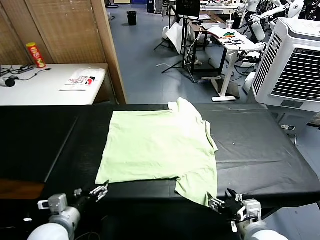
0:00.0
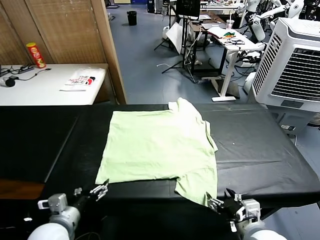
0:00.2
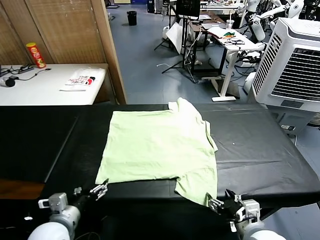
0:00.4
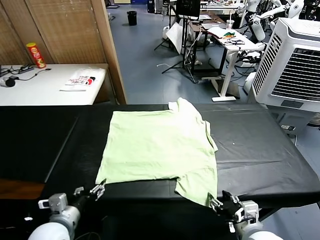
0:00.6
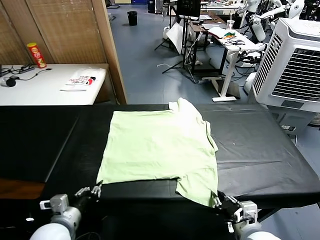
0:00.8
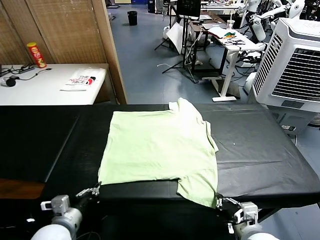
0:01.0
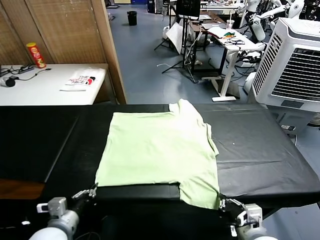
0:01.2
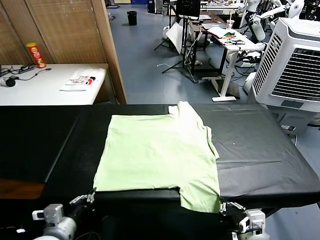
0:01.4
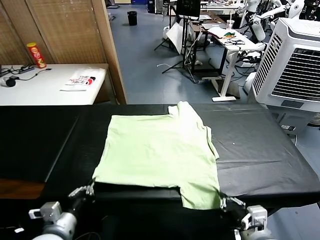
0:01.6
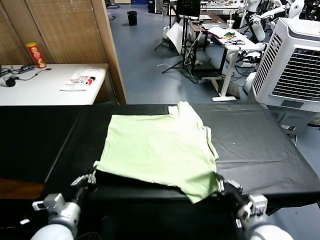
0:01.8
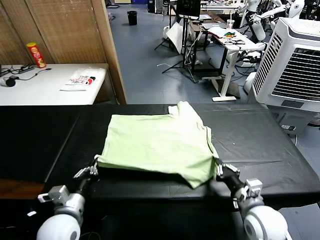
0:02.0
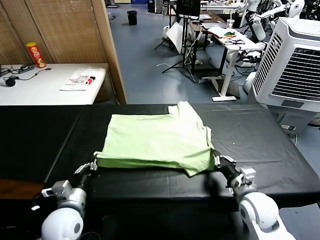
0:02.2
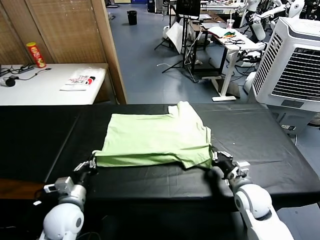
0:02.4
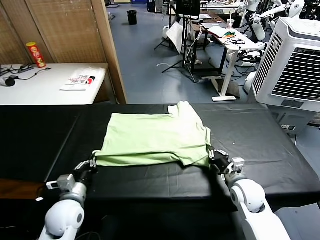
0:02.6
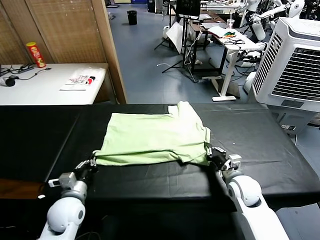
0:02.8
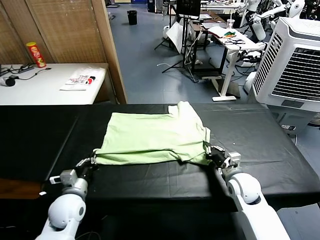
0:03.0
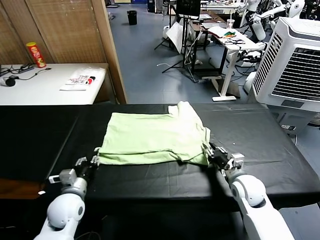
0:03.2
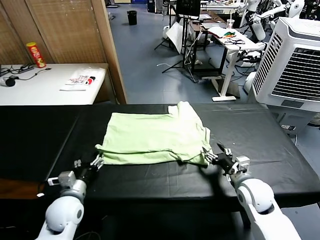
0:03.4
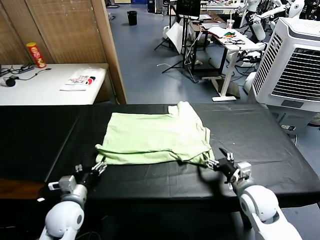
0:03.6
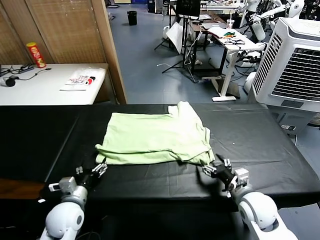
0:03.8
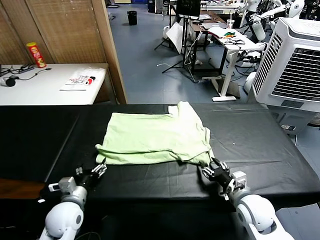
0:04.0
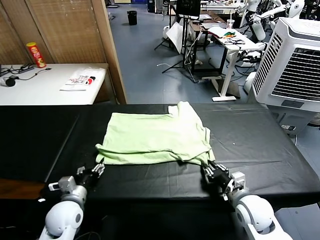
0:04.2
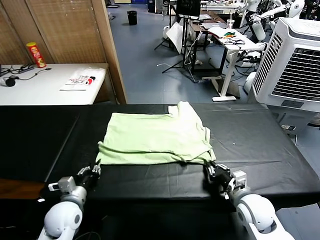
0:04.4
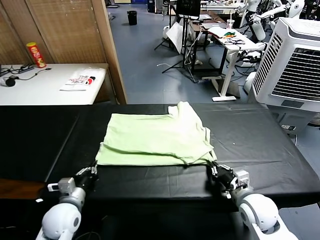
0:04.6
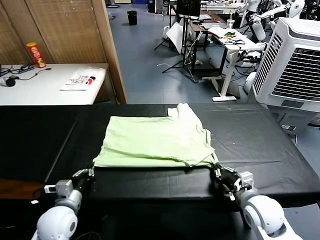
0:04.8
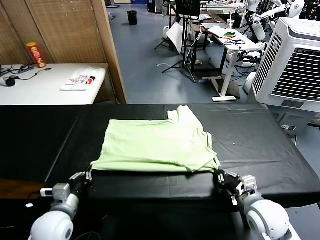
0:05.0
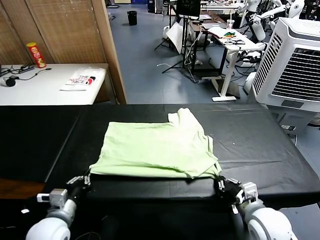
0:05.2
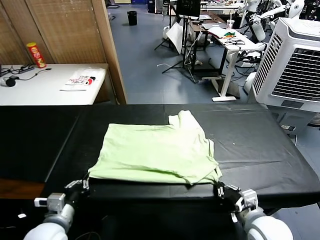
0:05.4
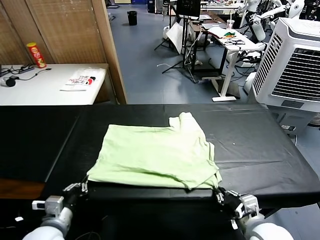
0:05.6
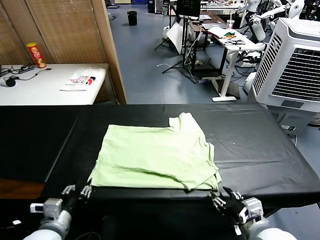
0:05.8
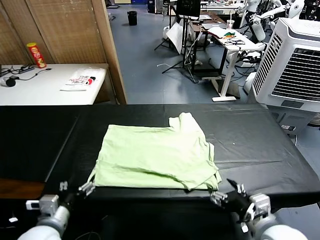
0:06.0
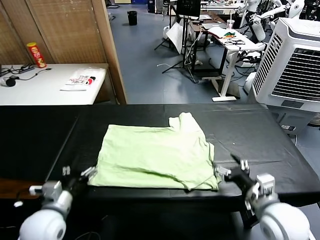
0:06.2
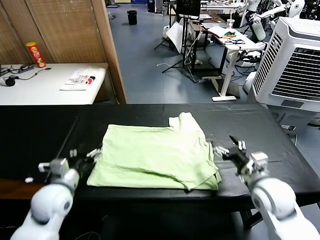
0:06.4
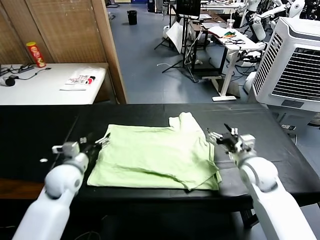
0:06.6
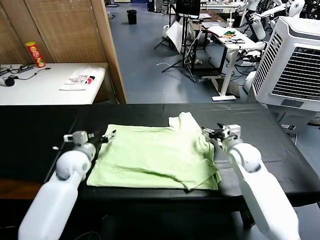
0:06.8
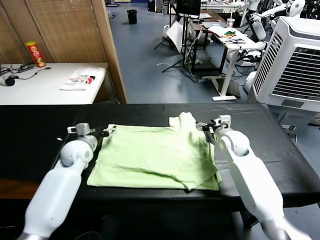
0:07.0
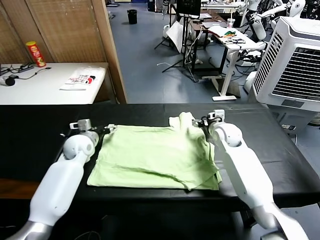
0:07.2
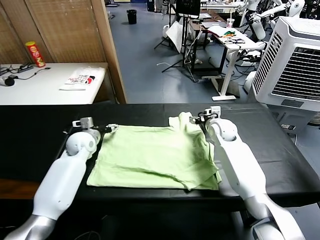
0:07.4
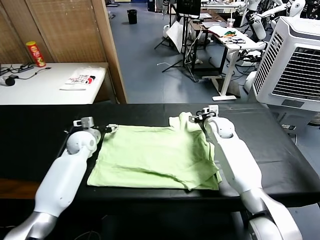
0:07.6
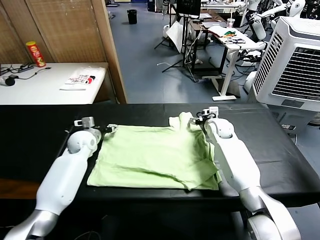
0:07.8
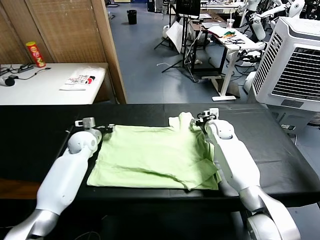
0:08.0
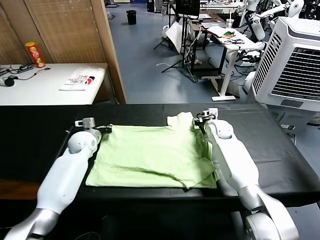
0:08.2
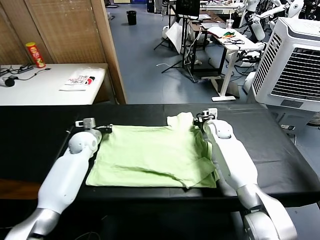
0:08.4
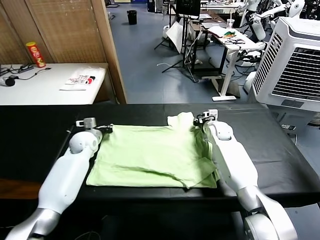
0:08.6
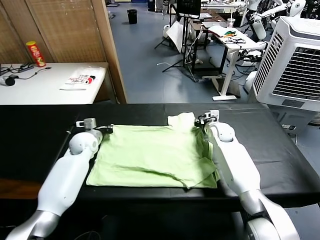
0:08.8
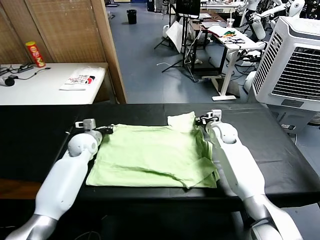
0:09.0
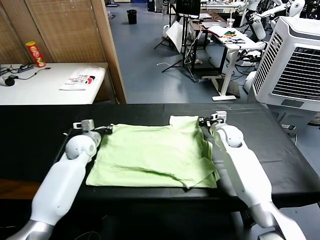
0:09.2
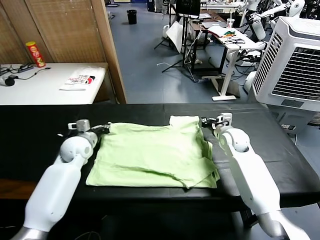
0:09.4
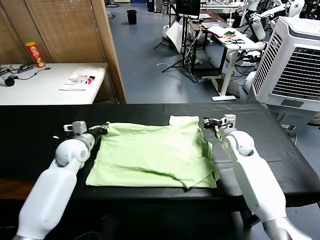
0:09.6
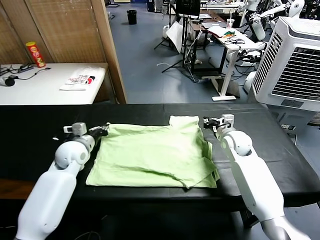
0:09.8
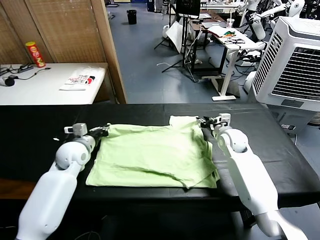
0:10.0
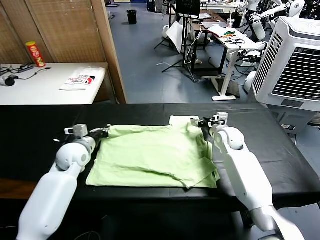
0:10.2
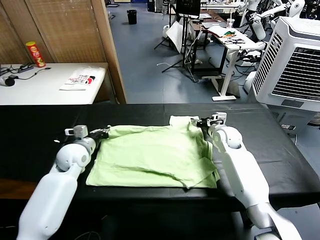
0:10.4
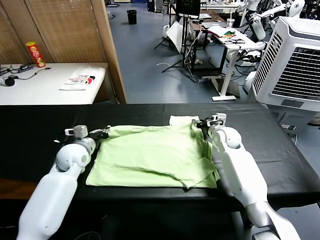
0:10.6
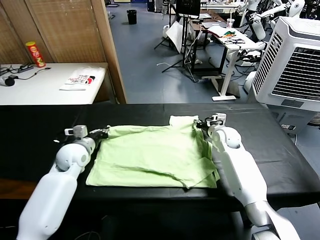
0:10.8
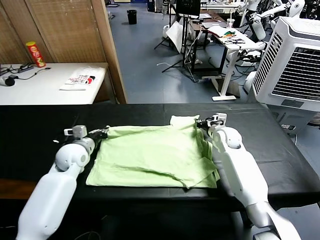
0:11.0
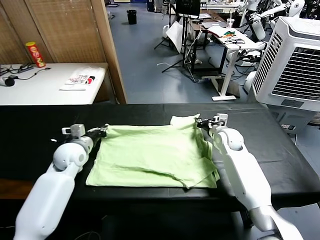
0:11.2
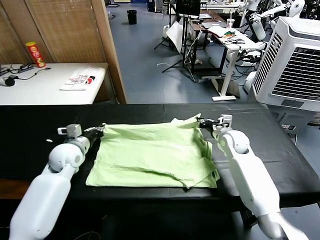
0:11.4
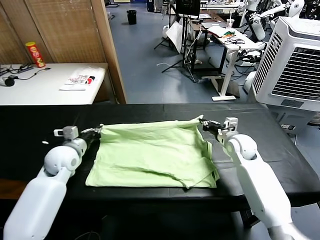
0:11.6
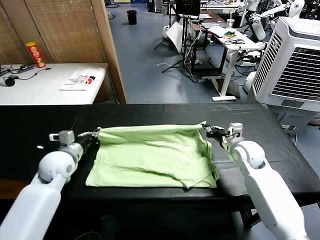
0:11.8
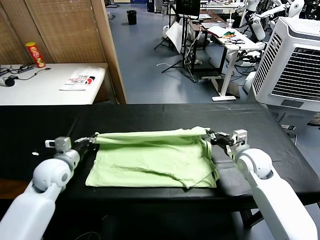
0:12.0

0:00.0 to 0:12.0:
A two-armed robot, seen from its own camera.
Task of the whole recording: fold and organize the clothes.
Step, 0:00.0 to 0:01.0: use both grippers simultaneously to clamp the lower edge of the clothing fabric.
Step, 0:01.2 to 0:03.4: use both grippers to drag the lower edge of the fabric forward and fold it over the upper edge.
Step, 0:03.6 to 0:05.8: Drag the clothes downward with both gripper.
Step, 0:06.2 to 0:08.4: use both grippers simultaneously to clamp the upper edge of the clothing fabric.
0:01.6 to 0:03.0: The right gripper goes about 15 cm forward. Meanwhile the left gripper heads forward and downward, covering about 15 cm.
0:03.0 to 0:04.4: The left gripper opens and closes again; the right gripper moves backward, roughly 5 cm, and opens, then closes once more.
0:04.4 to 0:06.0: The left gripper travels backward and upward by some 10 cm, and opens its fingers, while the right gripper shifts approximately 10 cm upward and backward, and opens up.
0:06.0 to 0:07.6: The two grippers go some 35 cm forward.
0:07.6 to 0:09.0: The right gripper closes up. Meanwhile the left gripper closes up.
0:09.0 to 0:10.4: The left gripper moves backward, roughly 5 cm. Meanwhile the right gripper opens up.
0:10.4 to 0:12.0: The left gripper shifts roughly 10 cm backward, while the right gripper goes approximately 15 cm backward, and closes its fingers.

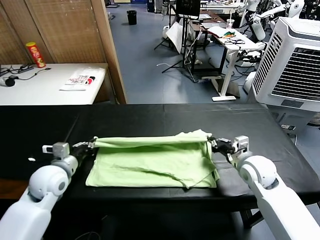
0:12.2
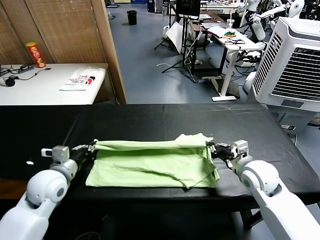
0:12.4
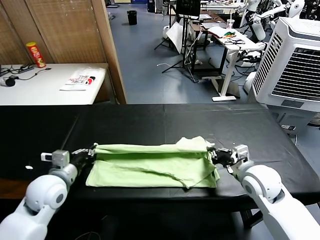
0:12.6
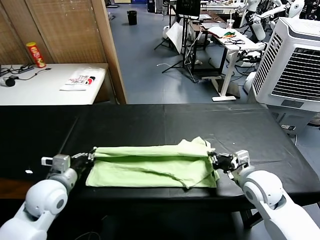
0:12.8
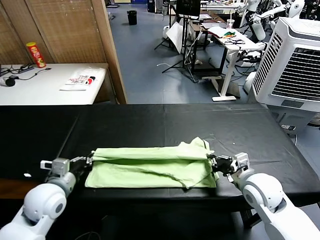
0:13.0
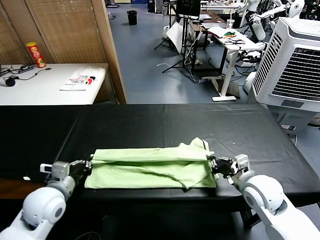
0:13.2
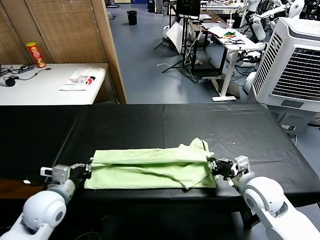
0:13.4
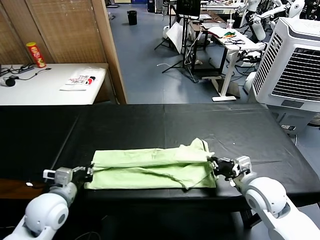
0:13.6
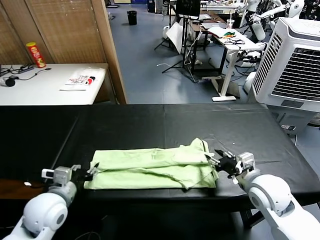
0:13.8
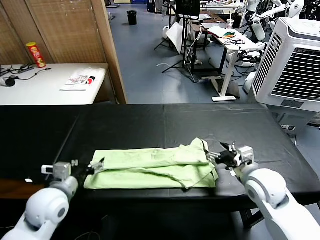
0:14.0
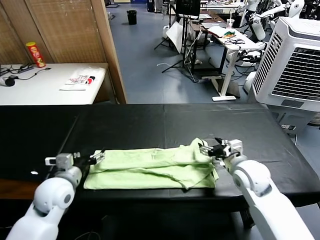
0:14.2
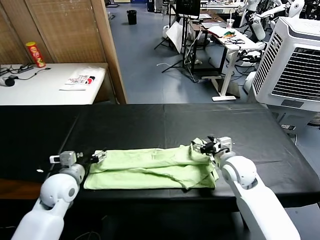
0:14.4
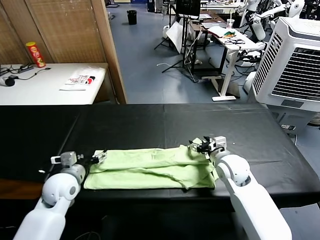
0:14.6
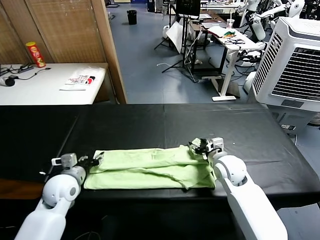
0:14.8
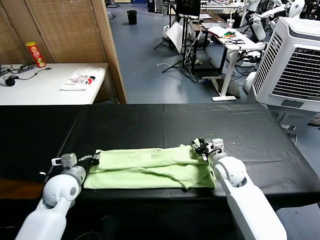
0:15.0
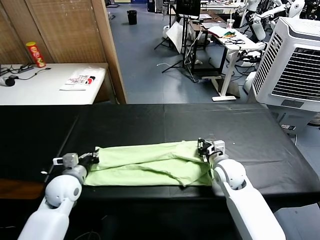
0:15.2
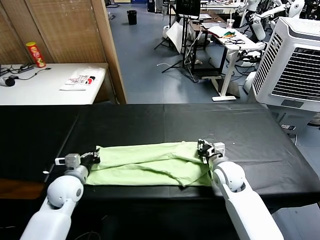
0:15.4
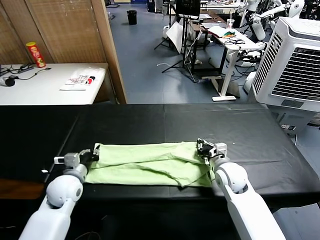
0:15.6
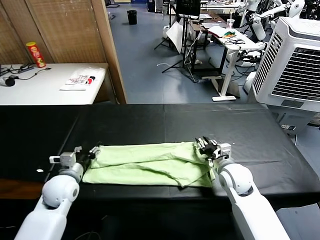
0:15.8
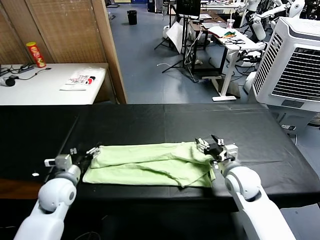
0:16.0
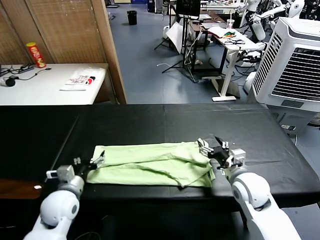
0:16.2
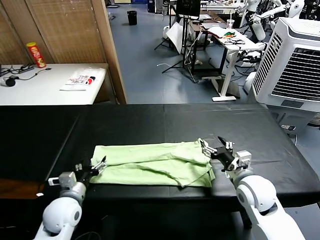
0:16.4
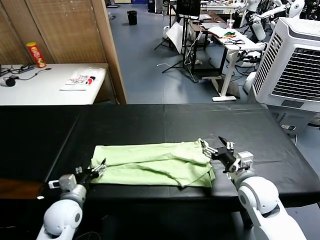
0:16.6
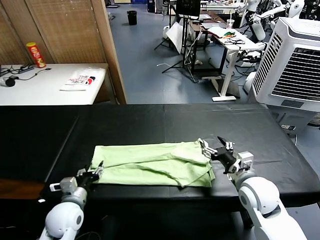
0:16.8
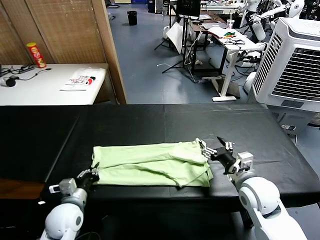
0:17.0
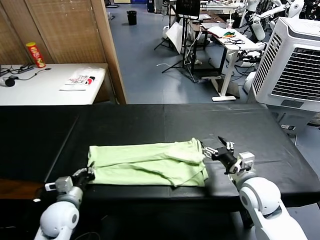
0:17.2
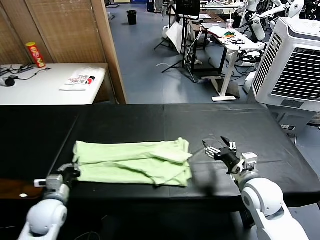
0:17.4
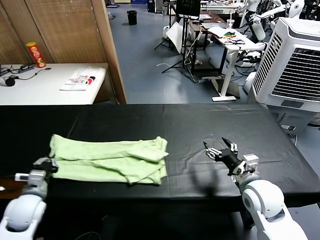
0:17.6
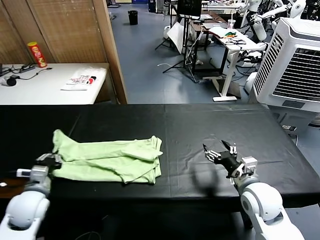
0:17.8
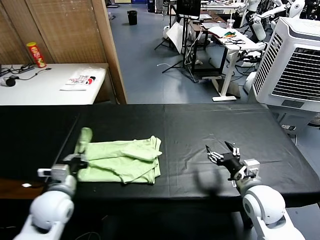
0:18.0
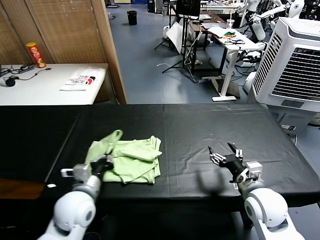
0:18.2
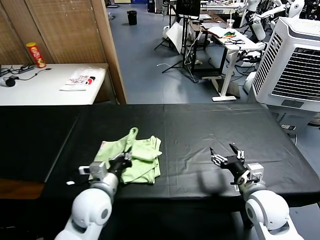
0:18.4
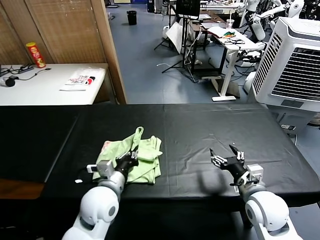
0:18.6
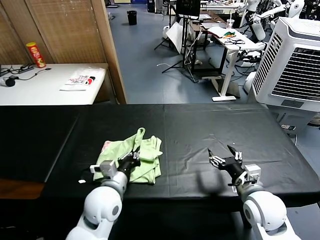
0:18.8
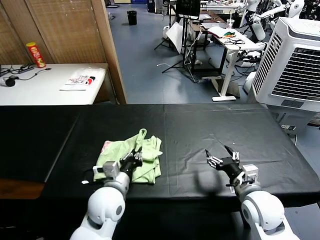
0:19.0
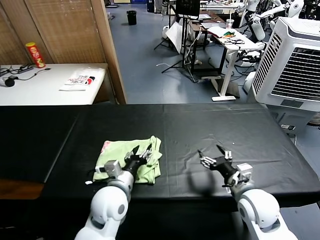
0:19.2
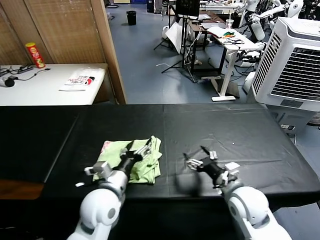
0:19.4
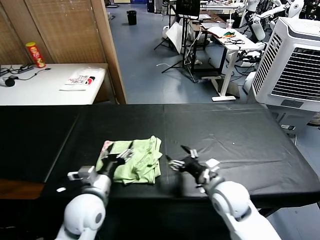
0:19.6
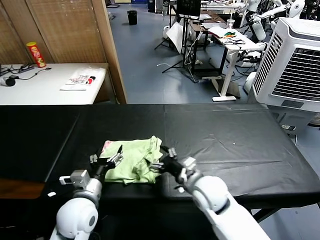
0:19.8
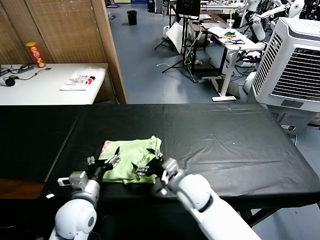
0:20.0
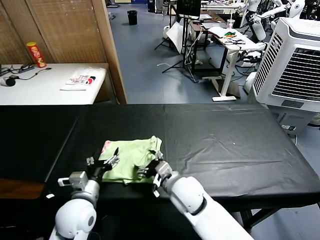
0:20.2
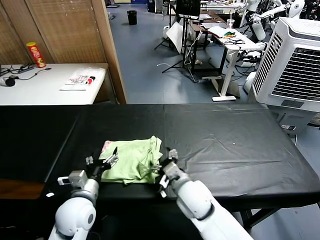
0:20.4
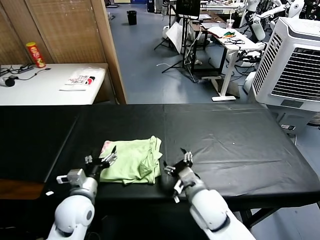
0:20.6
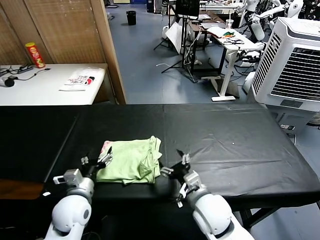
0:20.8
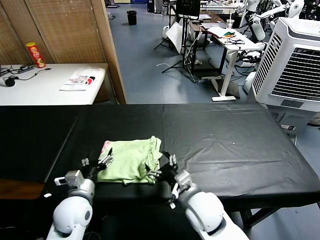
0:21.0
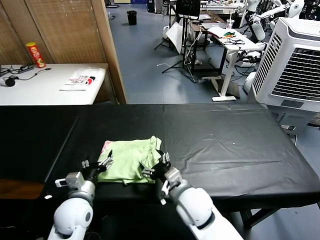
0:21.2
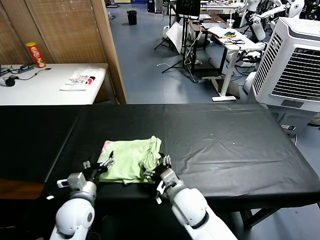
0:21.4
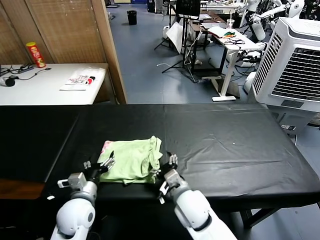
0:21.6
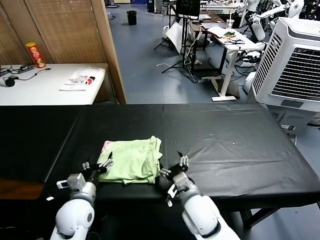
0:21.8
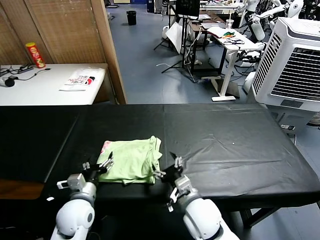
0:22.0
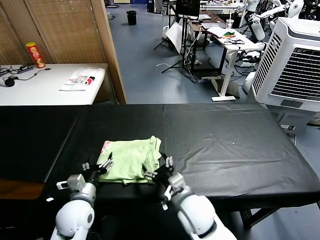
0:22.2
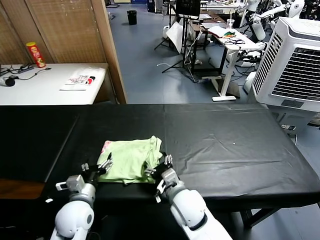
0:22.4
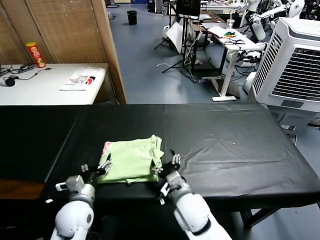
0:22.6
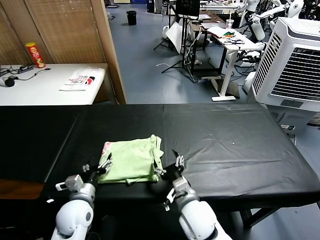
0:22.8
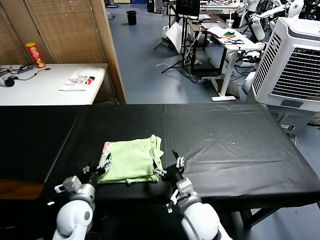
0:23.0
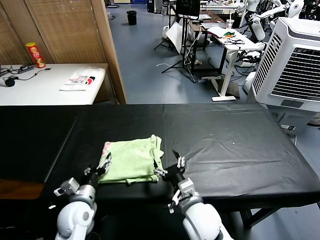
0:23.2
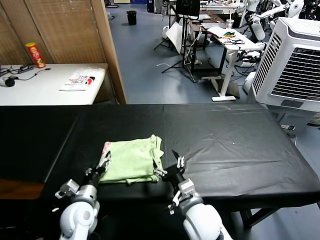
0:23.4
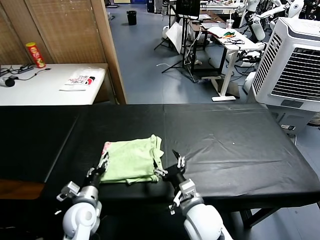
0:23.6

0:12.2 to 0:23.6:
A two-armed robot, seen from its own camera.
Task of the whole recording: fold and organize the clothes.
Step, 0:14.0 to 0:17.0: use the left gripper to clamp the left edge of the fabric.
Step, 0:17.2 to 0:19.2: use the left gripper to drag the left edge of the fabric to the left and folds it over the right edge.
0:12.2 to 0:13.6: The two grippers go about 5 cm backward.
0:13.6 to 0:15.0: The right gripper shifts some 15 cm forward, downward and to the left, and opens and closes again, while the left gripper goes some 10 cm forward, and opens and closes again.
0:15.0 to 0:16.4: Both grippers travel together backward, some 10 cm. The right gripper opens up, while the left gripper opens.
0:16.4 to 0:17.8: The left gripper shifts some 10 cm to the left, and closes.
0:17.8 to 0:19.4: The left gripper moves to the right, about 25 cm, and opens.
0:19.4 to 0:20.8: The grippers both shift to the left by about 10 cm.
